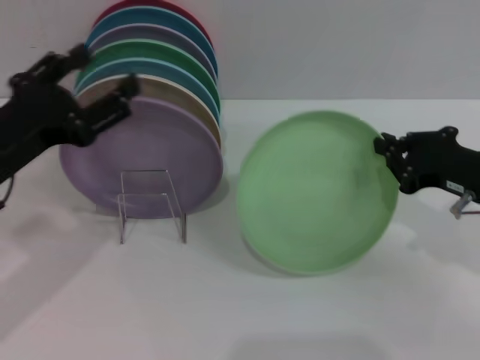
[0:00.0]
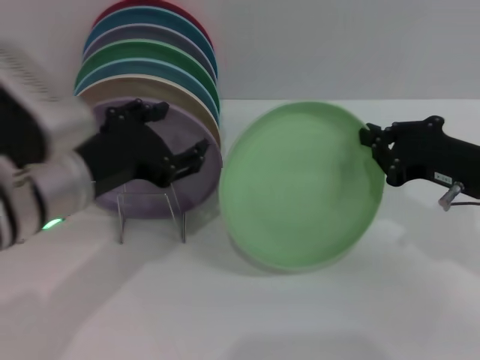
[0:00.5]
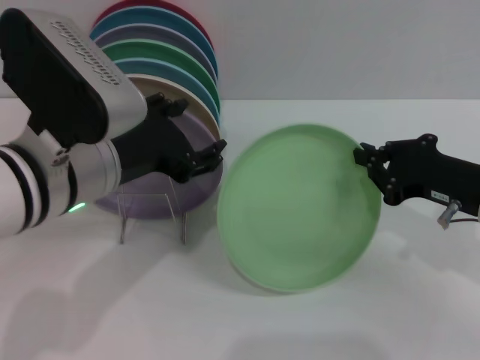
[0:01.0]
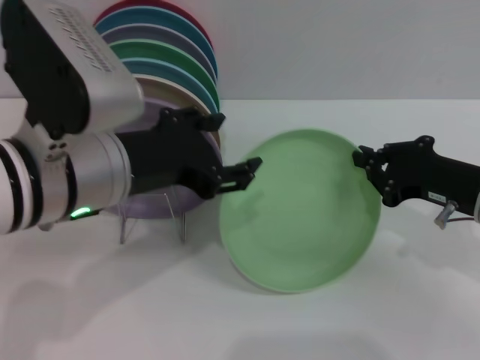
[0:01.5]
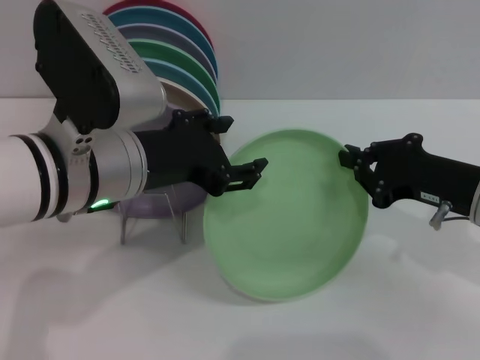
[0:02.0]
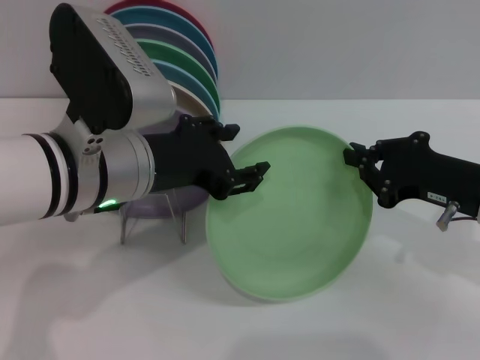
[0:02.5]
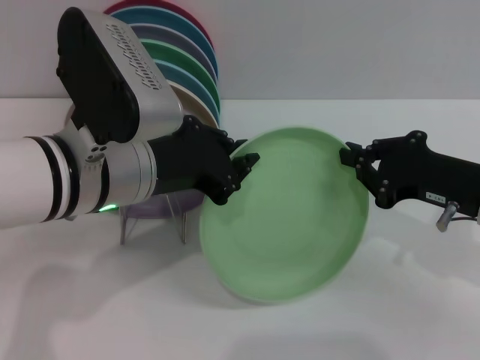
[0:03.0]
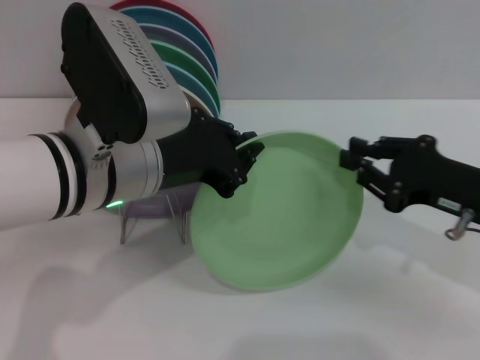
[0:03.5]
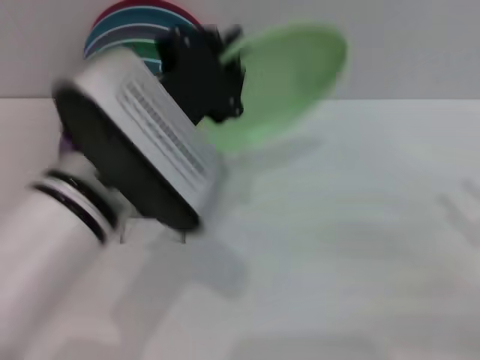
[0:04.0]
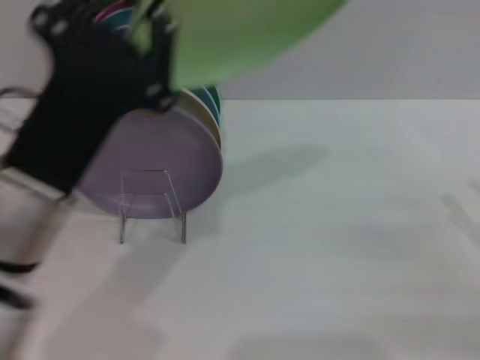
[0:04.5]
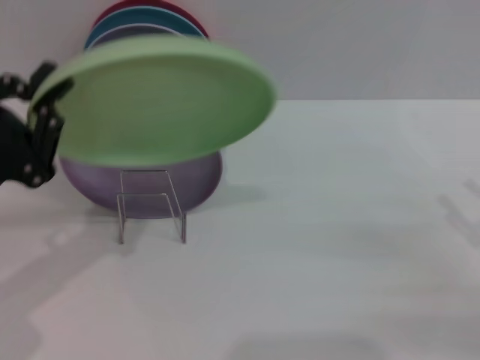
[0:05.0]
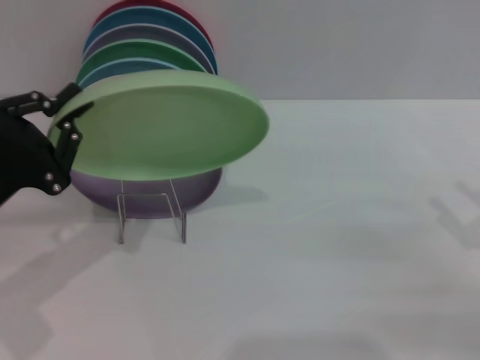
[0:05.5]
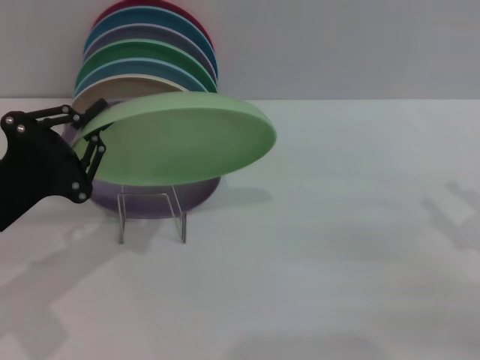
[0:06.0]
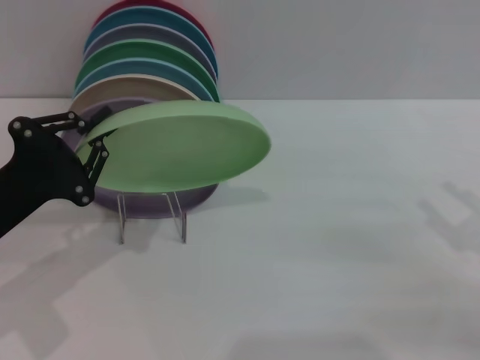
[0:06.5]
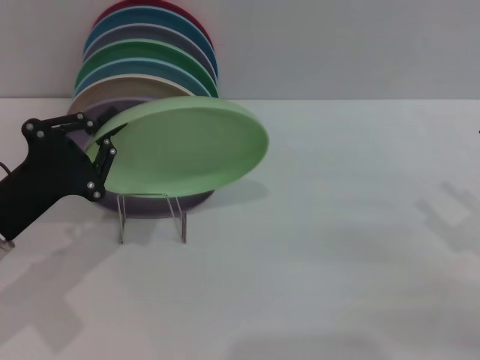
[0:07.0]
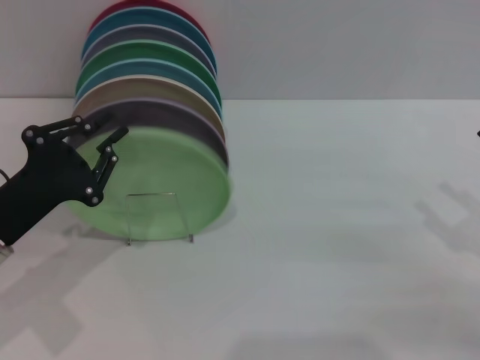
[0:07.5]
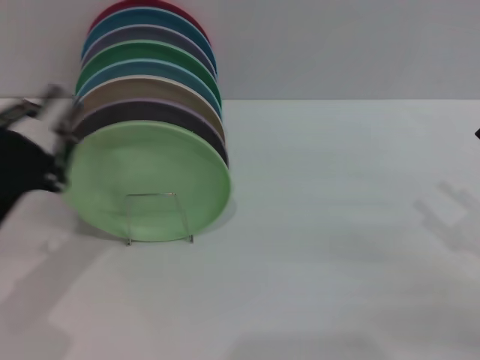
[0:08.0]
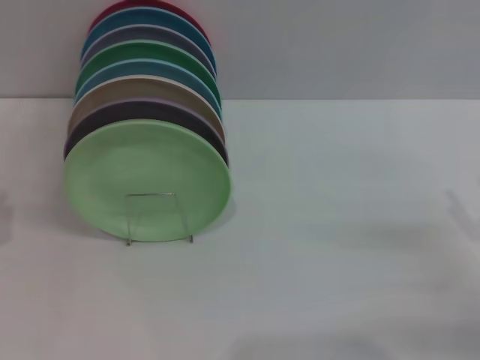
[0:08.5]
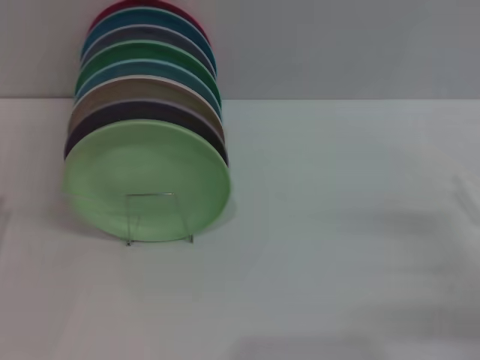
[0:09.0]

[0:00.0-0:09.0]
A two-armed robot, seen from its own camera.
Task of the whole recording: Grip the plate with one hand, pass it to the other, then set it on the shelf.
Step, 0:00.0 to 0:03.5: Pass the plate from the right gripper to the left gripper.
Step, 0:04.0 to 0:07.5: Place the plate on the shelf with the left gripper.
0:00.0 to 0:02.0: The left gripper goes approximately 10 cm to the right.
0:02.0 to 0:04.5: The left gripper goes roughly 5 cm backward, and closes. The right gripper heads to the right and backward, covering some 15 cm, and opens its fingers.
0:04.5 to 0:07.0: The left gripper shifts some 15 cm to the left and downward.
0:07.0 to 0:09.0: The left gripper goes about 10 cm to the left and backward, and opens up.
